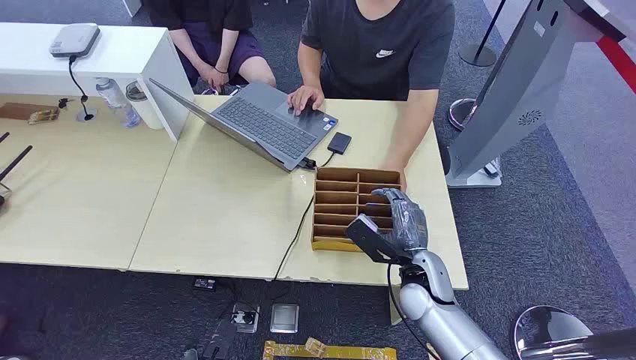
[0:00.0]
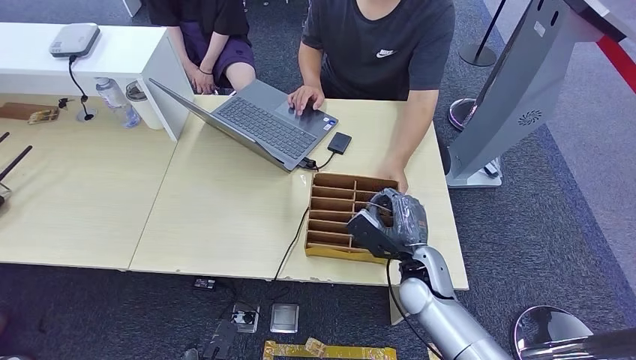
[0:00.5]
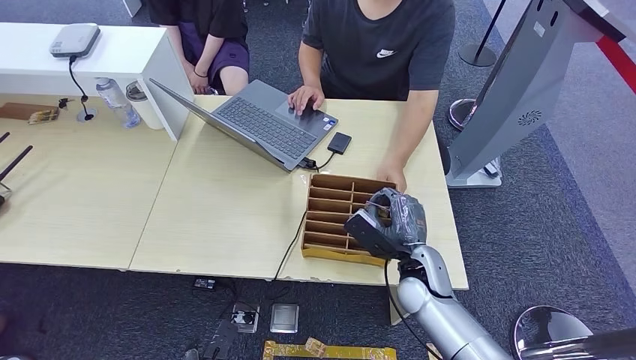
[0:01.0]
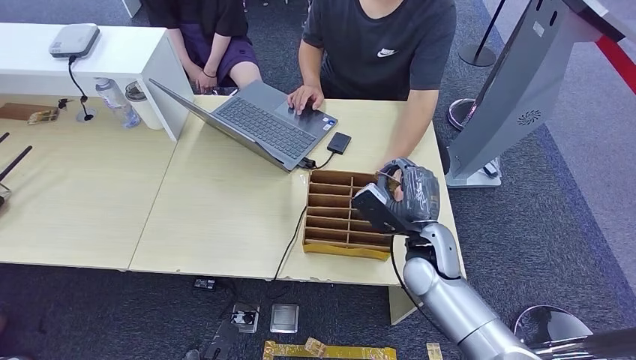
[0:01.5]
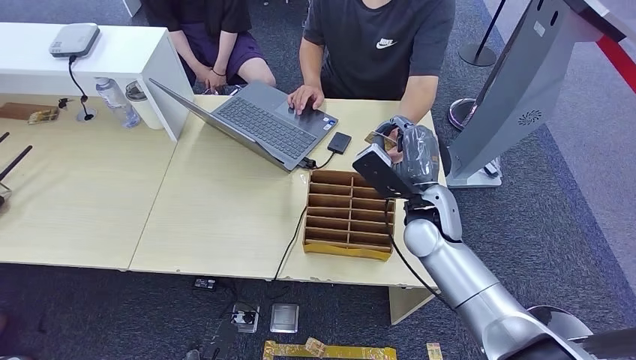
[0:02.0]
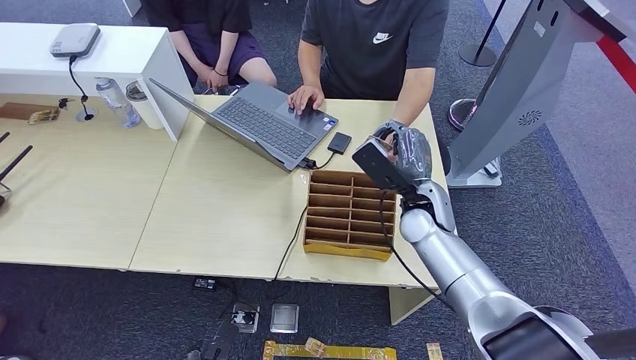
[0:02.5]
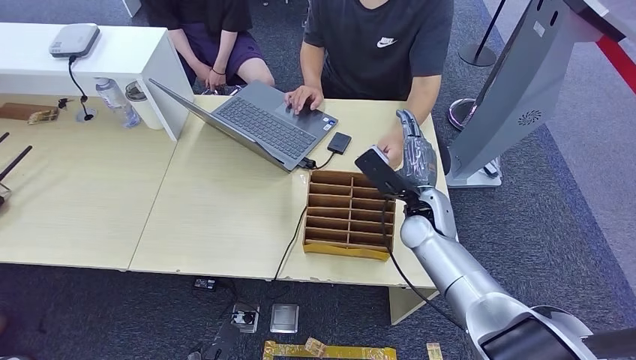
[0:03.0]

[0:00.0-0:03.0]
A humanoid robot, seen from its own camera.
Step, 0:00.0 to 0:01.0: Pick up the room card from the card holder.
Step, 0:01.5 to 0:03.0: Hand the room card to the target.
0:01.5 to 0:03.0: The right hand travels forward by some 5 cm.
